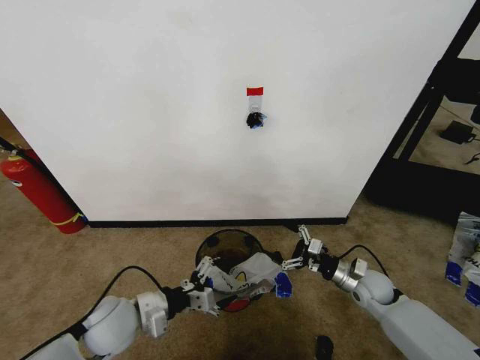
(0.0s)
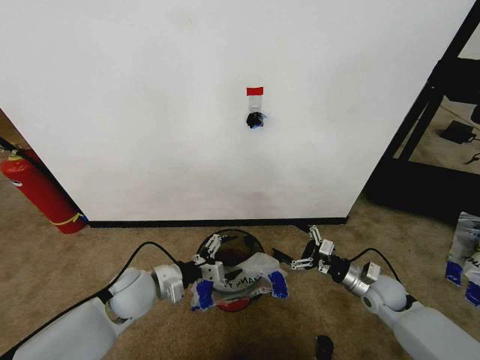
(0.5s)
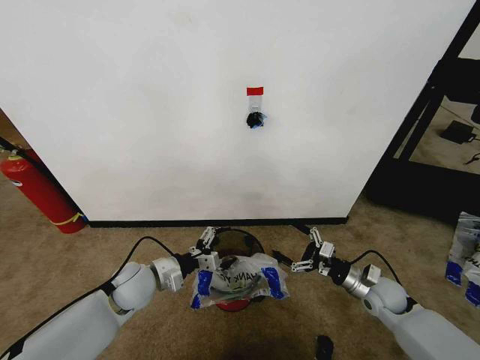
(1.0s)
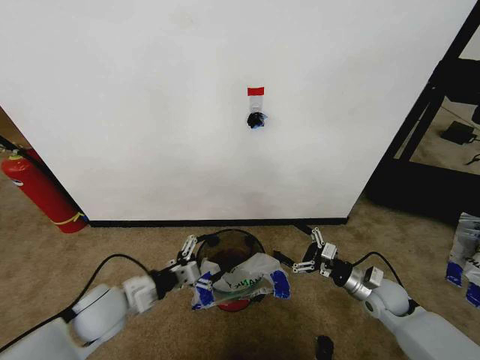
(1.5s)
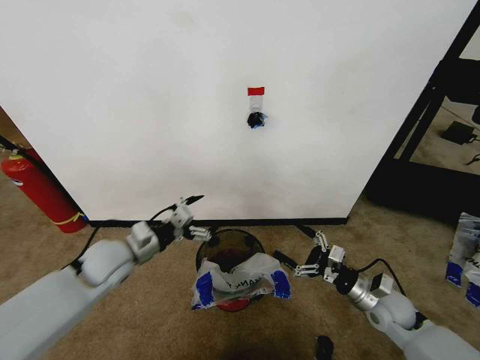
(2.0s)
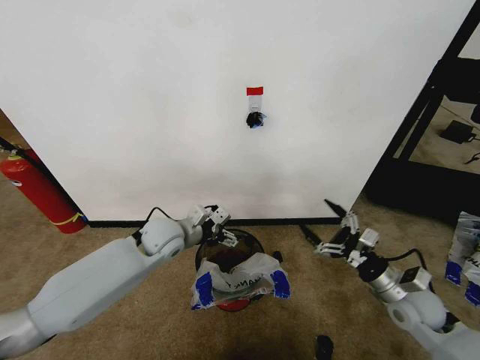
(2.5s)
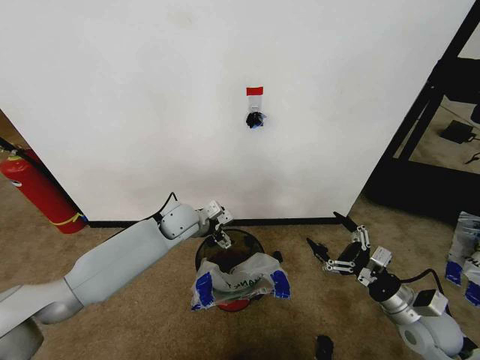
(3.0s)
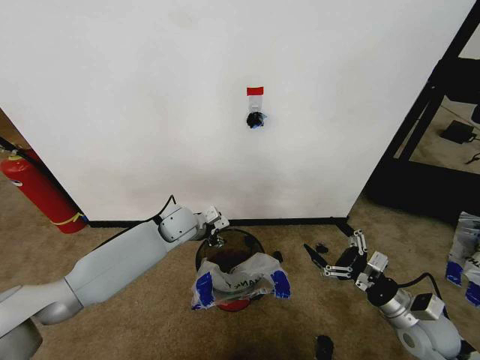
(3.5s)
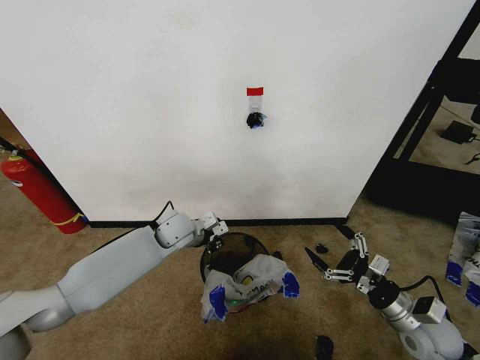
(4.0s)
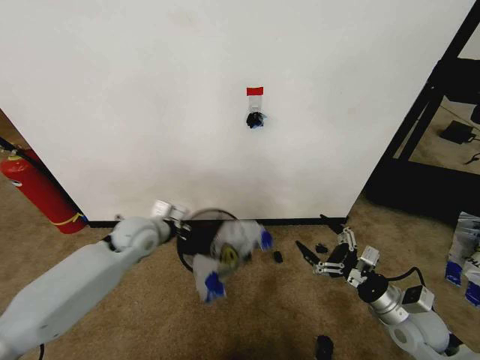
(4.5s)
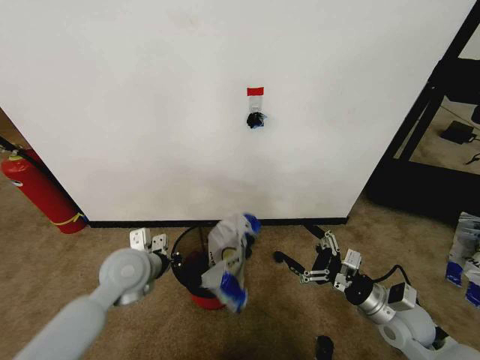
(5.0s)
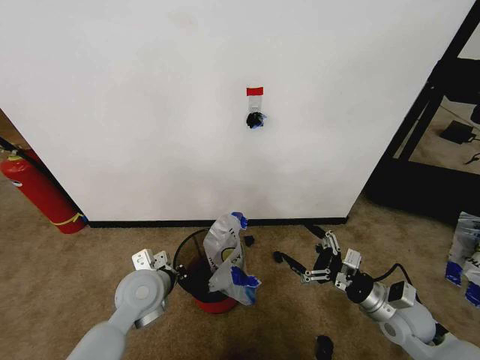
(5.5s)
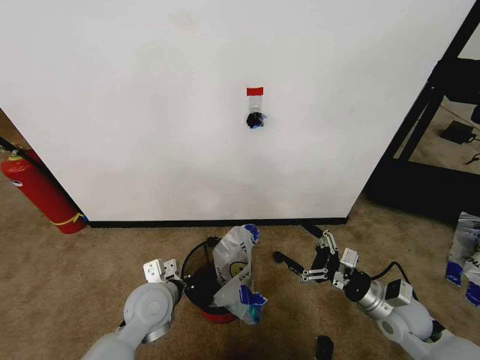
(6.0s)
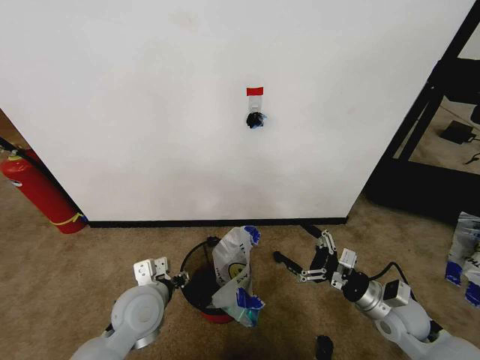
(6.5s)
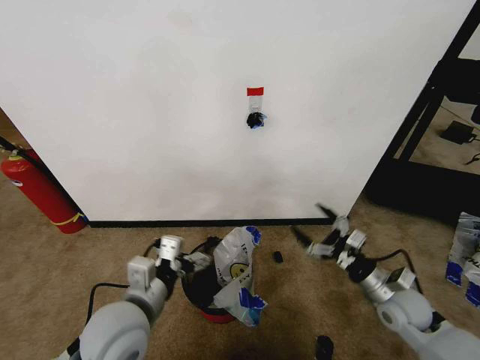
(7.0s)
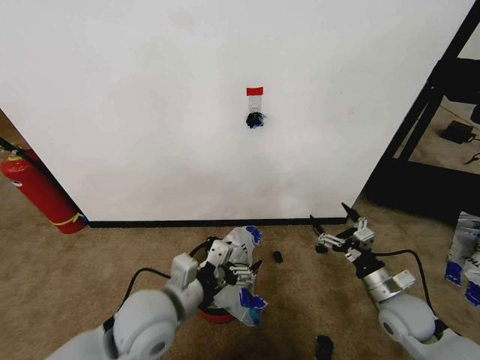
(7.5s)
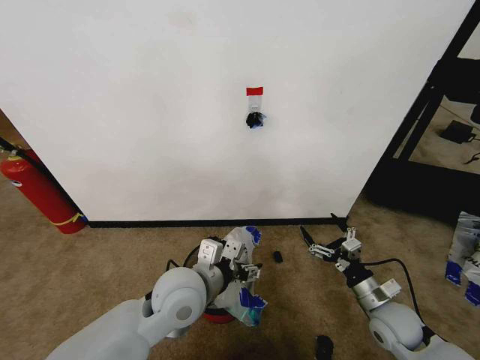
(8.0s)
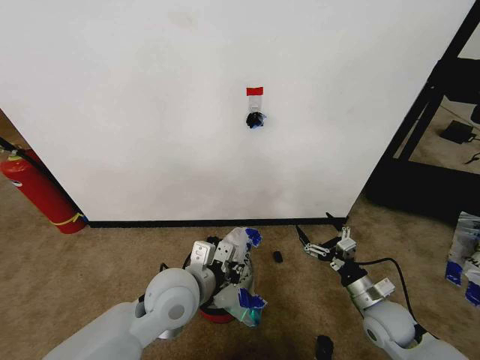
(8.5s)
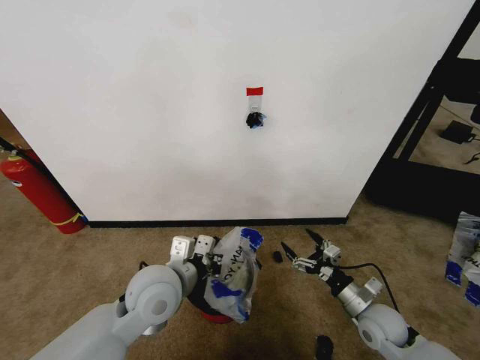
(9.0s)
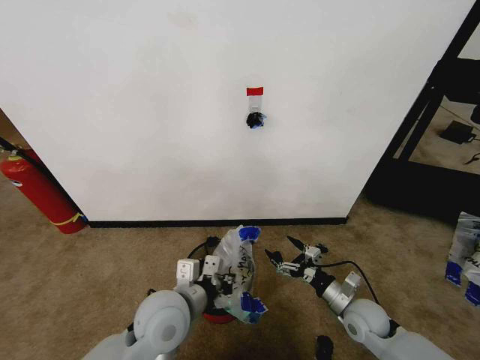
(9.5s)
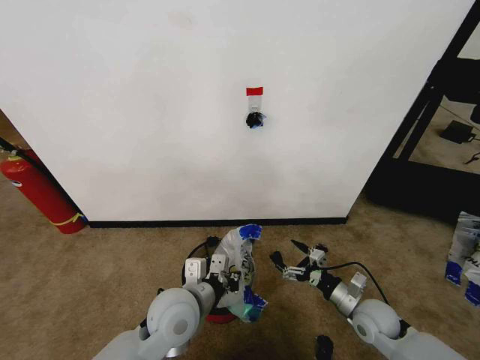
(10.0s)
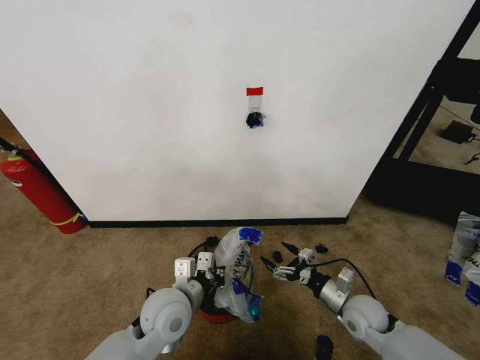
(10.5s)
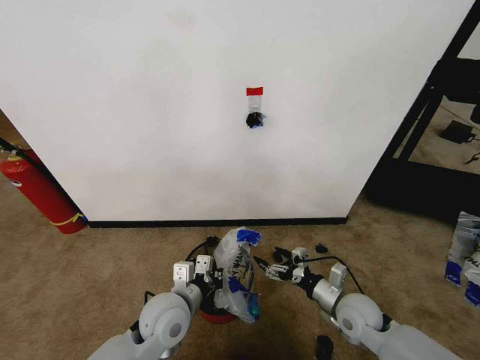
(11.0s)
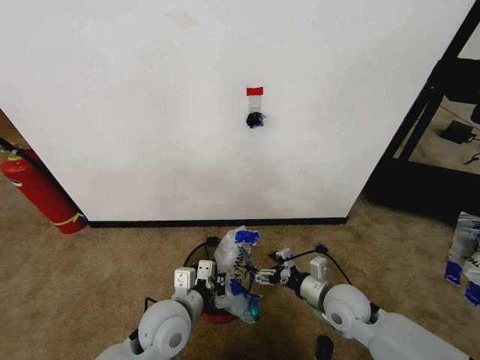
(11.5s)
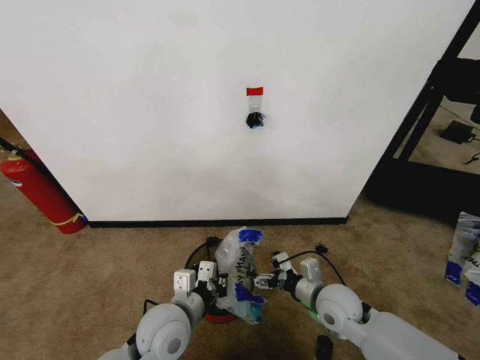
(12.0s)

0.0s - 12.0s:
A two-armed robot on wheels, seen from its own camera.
Task of the whole recording: Pick up the garbage bag from the wall and place it over the trash bin.
0.0s - 2.0s: The right gripper moves backward, approximately 5 cm, while the left gripper goes forward and backward, approximately 10 cm each way, reversing 2 times.
2.0s - 4.0s: The right gripper heads backward, covering roughly 5 cm. Meanwhile the left gripper heads to the right and forward, covering approximately 15 cm, and closes its fingers.
4.0s - 6.0s: The left gripper heads backward, covering roughly 20 cm.
6.0s - 8.0s: The left gripper shifts about 10 cm upward and to the right, and opens up.
8.0s - 10.0s: The left gripper ends up roughly 5 cm from where it was, and closes up.
10.0s - 12.0s: The right gripper shifts roughly 10 cm to the left and upward.

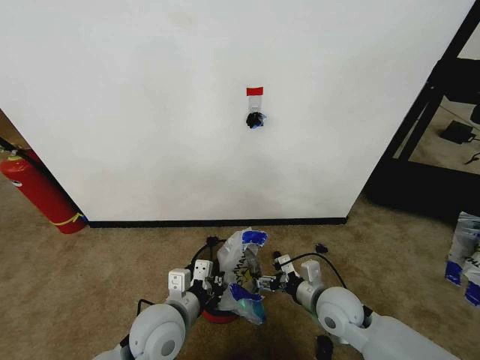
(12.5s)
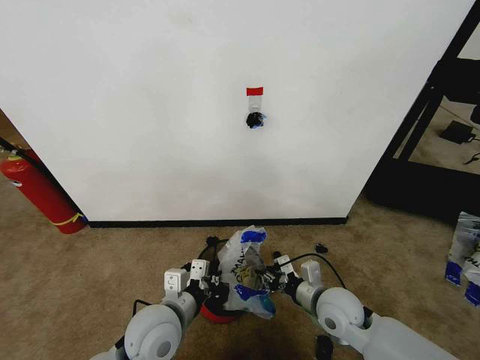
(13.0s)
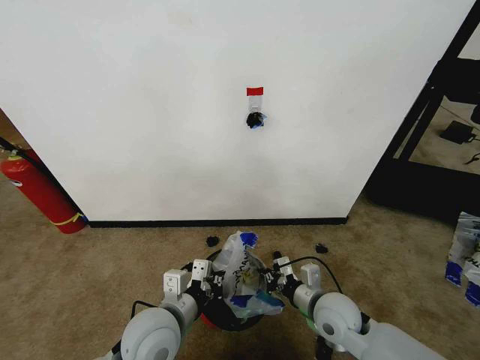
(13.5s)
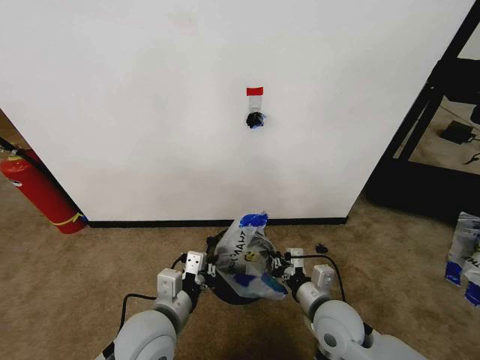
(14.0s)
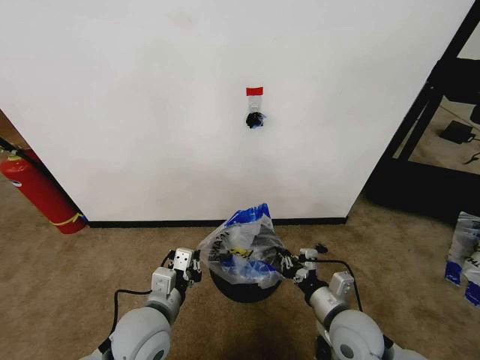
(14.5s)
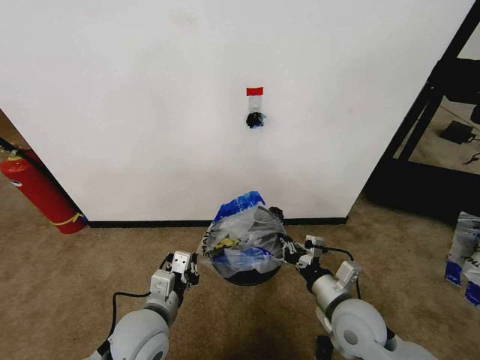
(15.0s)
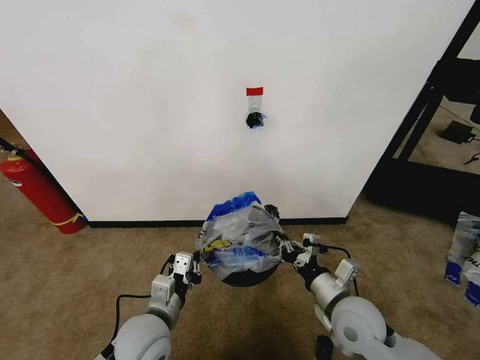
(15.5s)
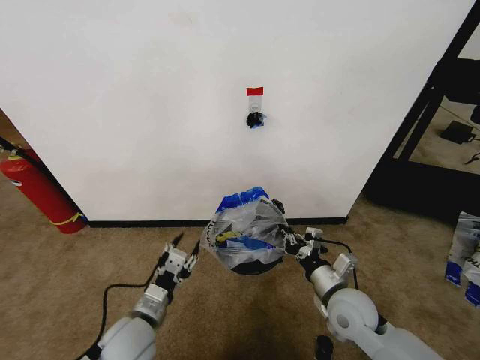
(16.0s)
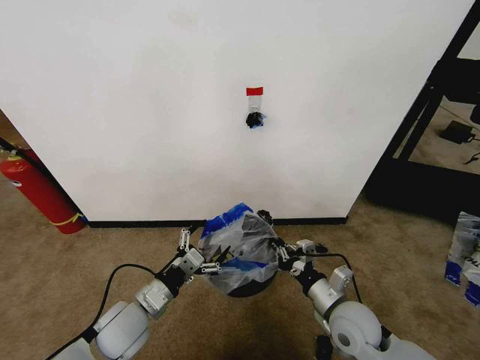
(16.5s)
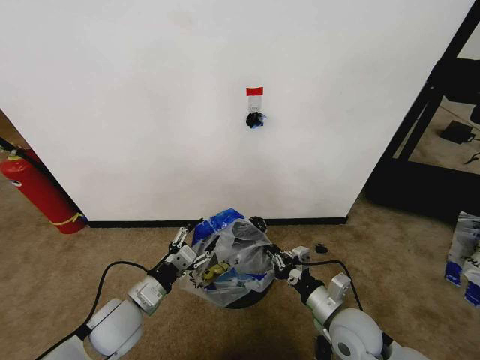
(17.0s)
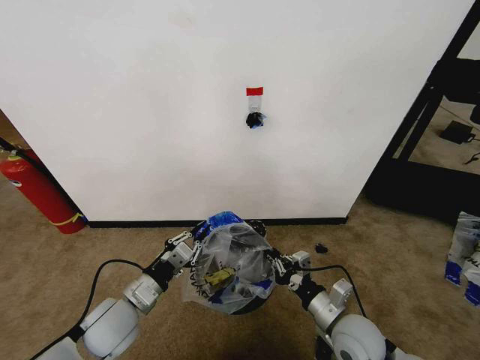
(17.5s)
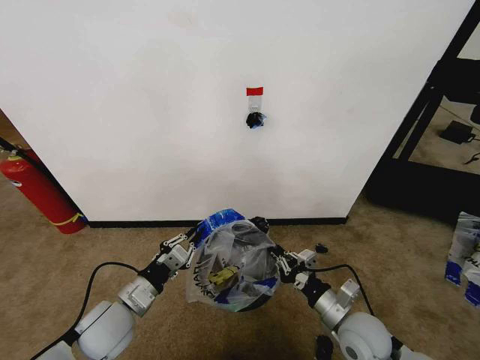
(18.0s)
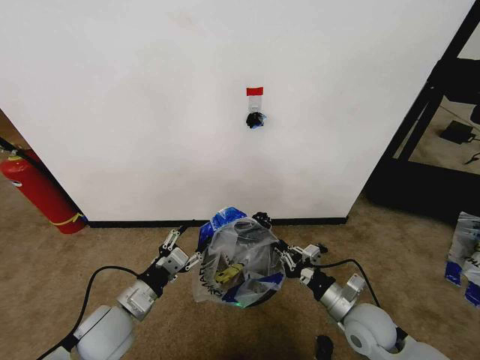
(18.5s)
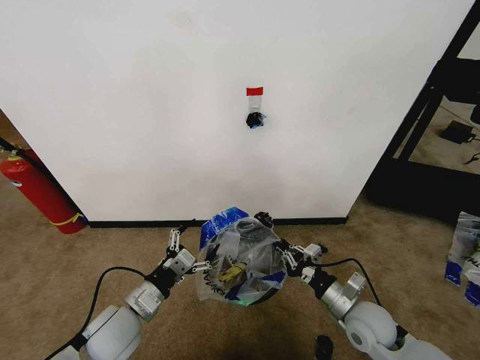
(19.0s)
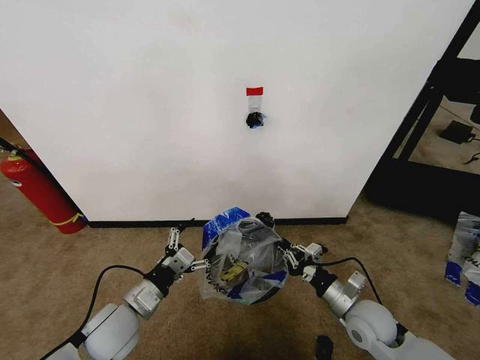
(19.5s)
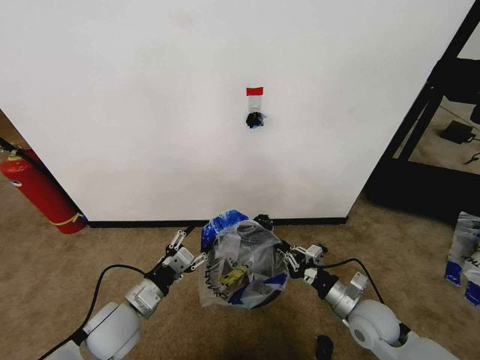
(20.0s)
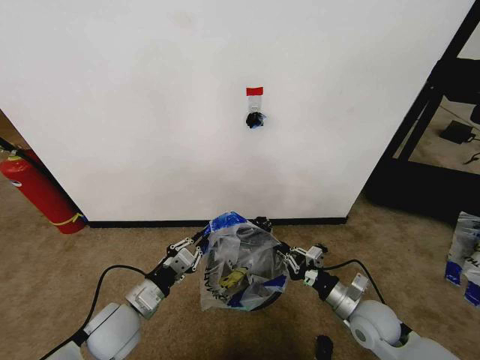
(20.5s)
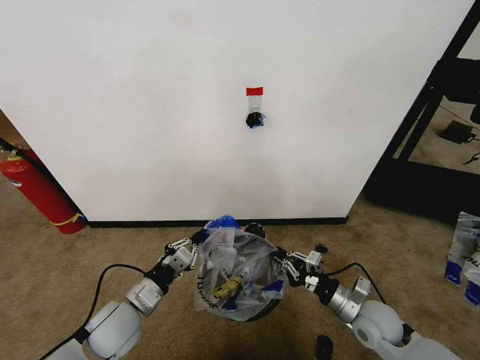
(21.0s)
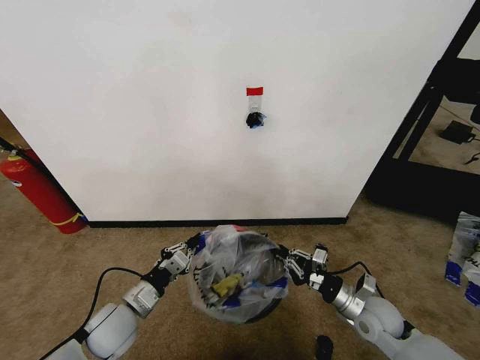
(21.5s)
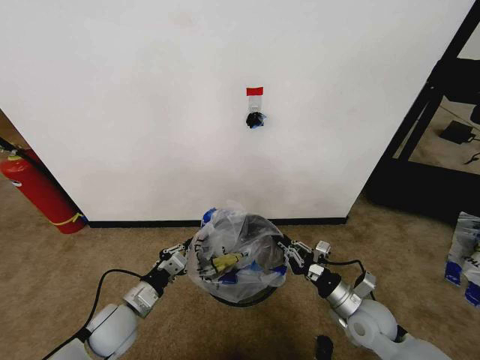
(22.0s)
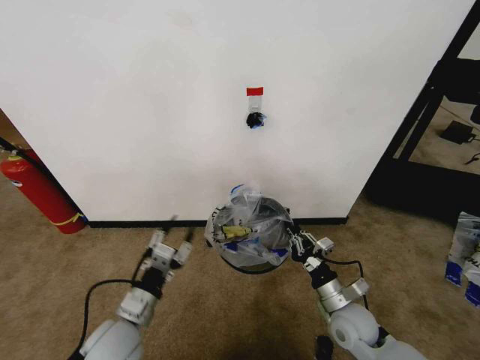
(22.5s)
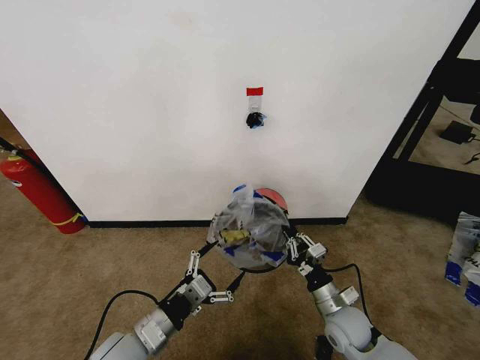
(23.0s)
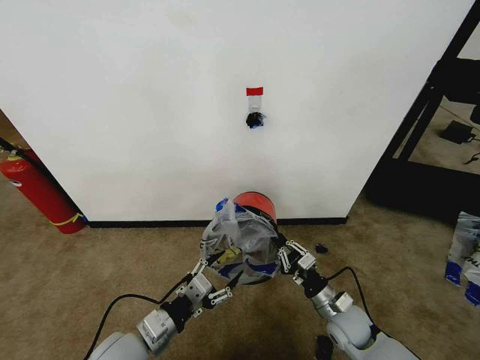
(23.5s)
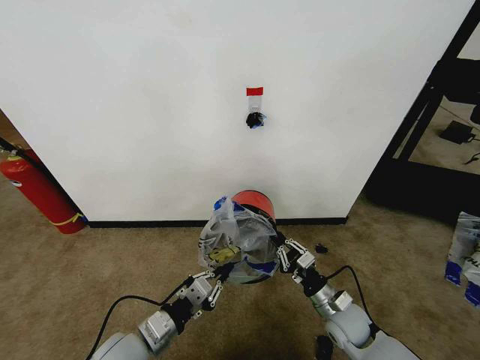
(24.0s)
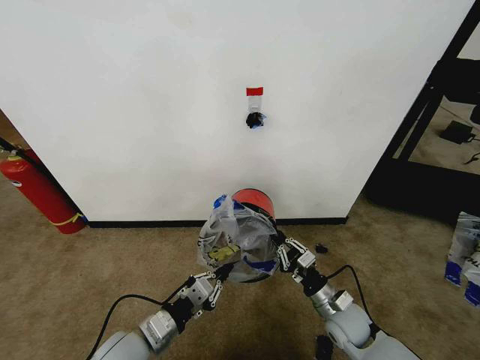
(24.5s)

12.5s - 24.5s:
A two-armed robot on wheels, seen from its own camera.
Task of the whole recording: Pick up the garbage bag from the wall and place it over the trash bin.
12.5s - 14.5s: The right gripper heads backward, covering approximately 5 cm, and closes its fingers.
14.5s - 16.5s: The left gripper shifts approximately 5 cm to the left, and opens up.
16.5s - 18.5s: The left gripper closes up.
18.5s - 20.5s: The left gripper closes its fingers.
20.5s - 22.5s: The left gripper opens.
22.5s - 24.5s: The left gripper closes up.

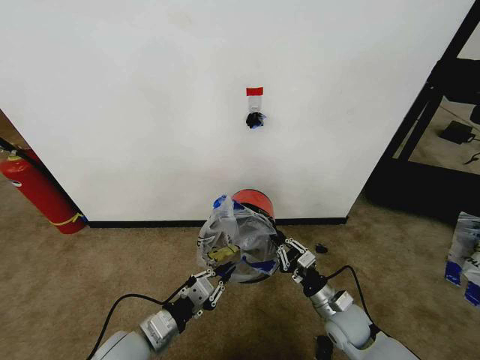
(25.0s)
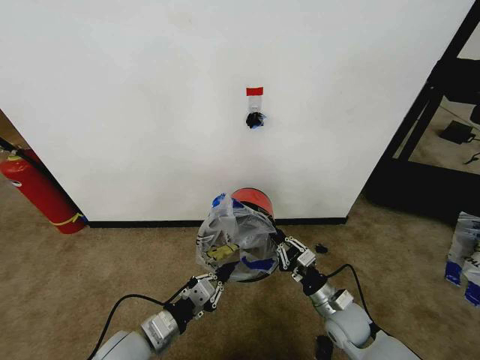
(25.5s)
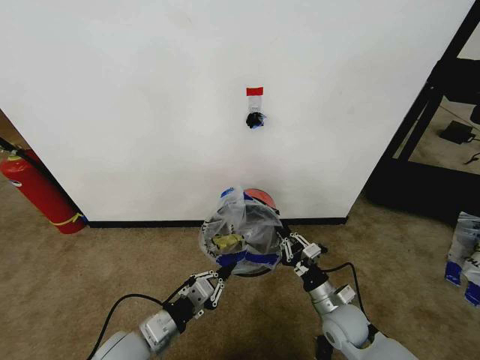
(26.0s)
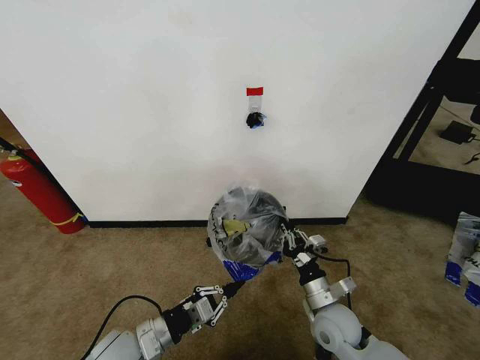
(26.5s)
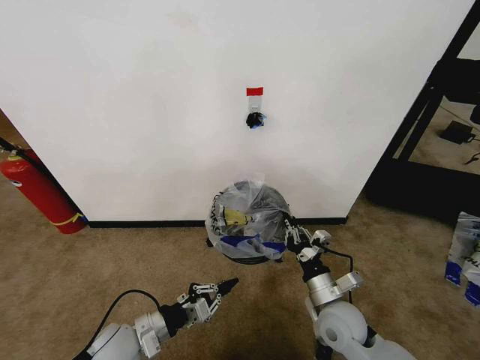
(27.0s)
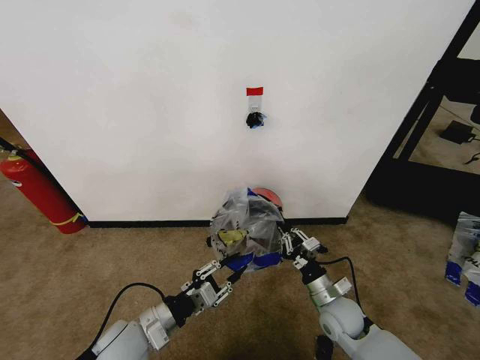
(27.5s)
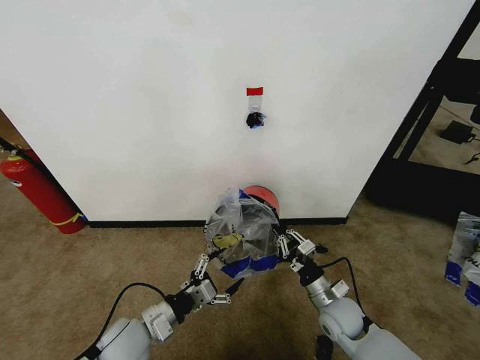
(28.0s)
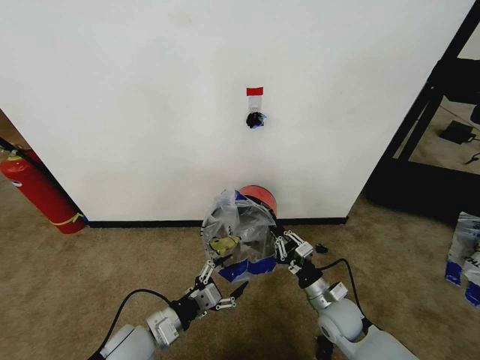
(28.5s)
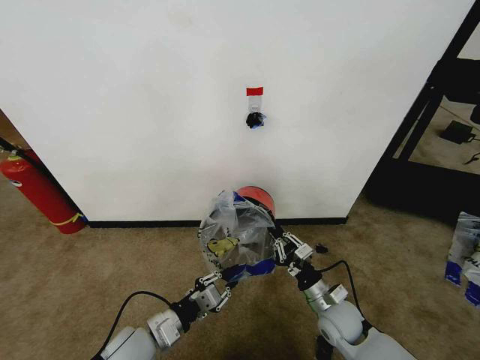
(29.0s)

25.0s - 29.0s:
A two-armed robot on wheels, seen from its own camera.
Task of the whole recording: Pick up the garbage bag from the wall and place it over the trash bin.
25.0s - 27.0s: The left gripper shifts by roughly 5 cm. The right gripper travels upward by roughly 5 cm.
27.0s - 29.0s: The right gripper moves downward, some 5 cm; the left gripper opens, then closes once more.
